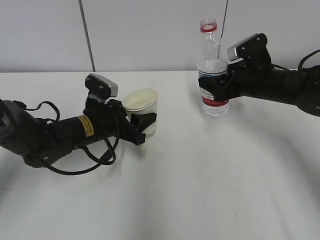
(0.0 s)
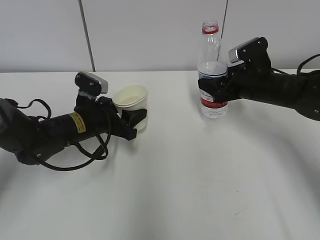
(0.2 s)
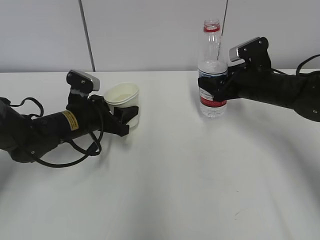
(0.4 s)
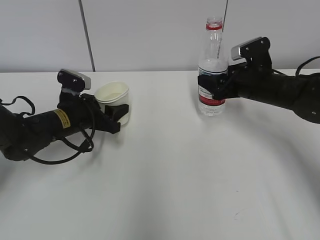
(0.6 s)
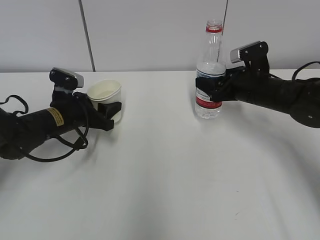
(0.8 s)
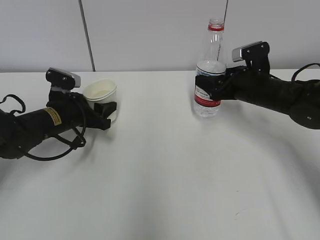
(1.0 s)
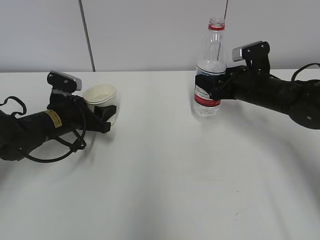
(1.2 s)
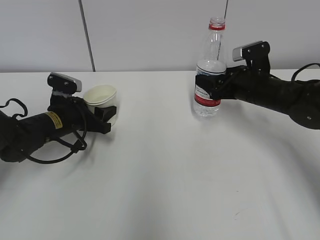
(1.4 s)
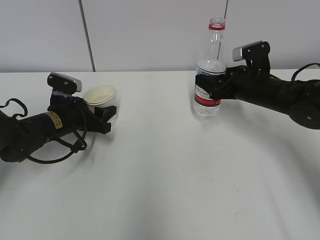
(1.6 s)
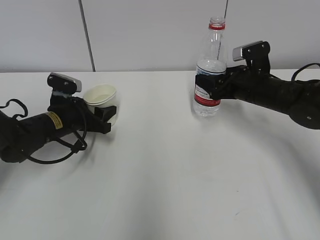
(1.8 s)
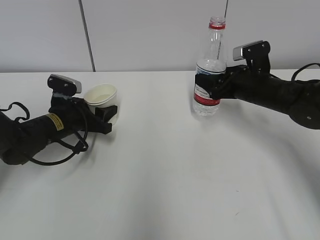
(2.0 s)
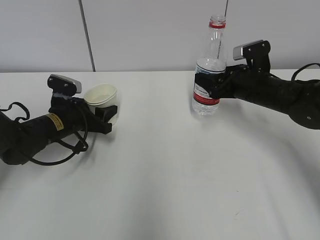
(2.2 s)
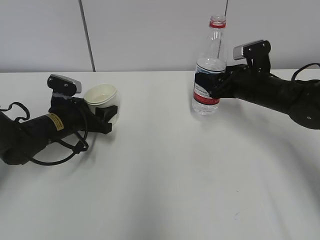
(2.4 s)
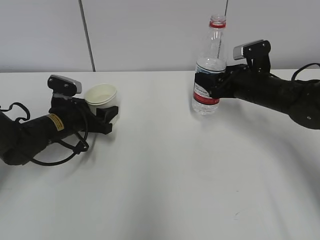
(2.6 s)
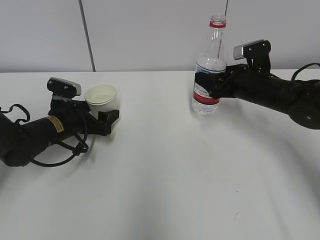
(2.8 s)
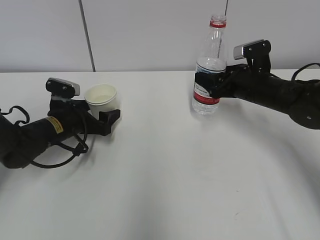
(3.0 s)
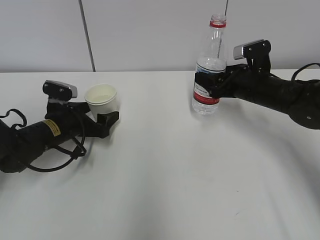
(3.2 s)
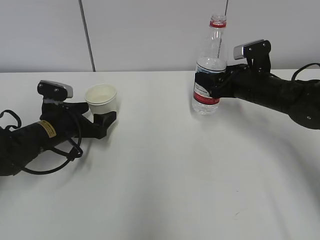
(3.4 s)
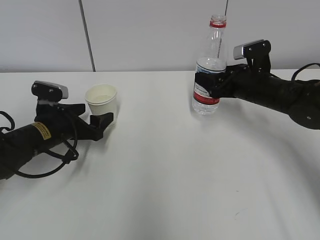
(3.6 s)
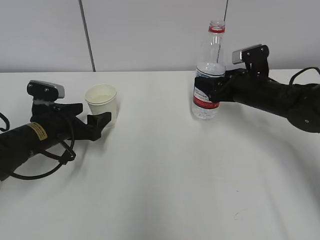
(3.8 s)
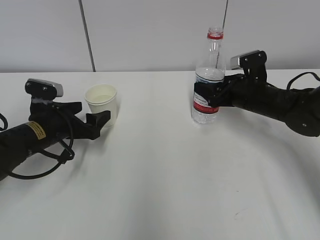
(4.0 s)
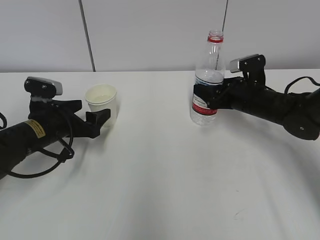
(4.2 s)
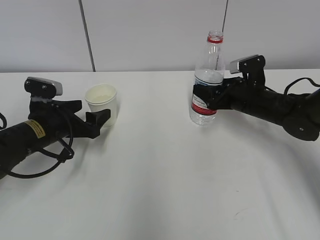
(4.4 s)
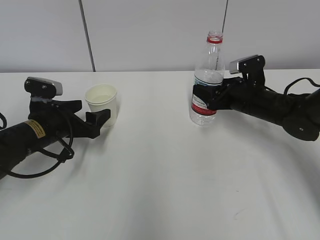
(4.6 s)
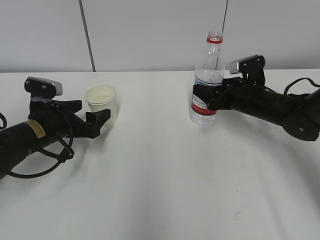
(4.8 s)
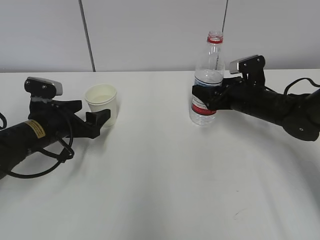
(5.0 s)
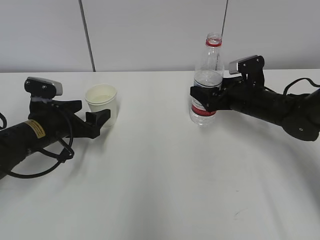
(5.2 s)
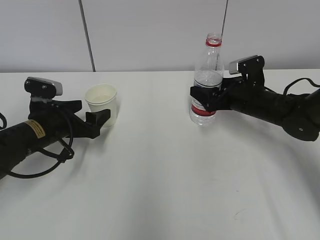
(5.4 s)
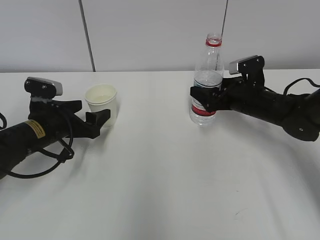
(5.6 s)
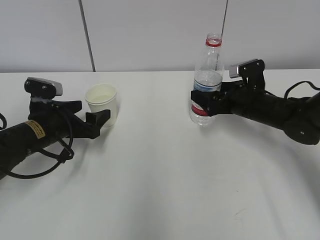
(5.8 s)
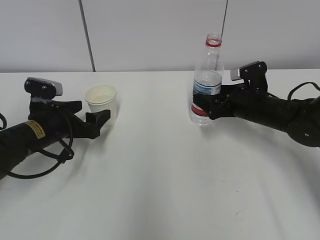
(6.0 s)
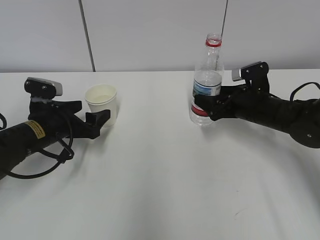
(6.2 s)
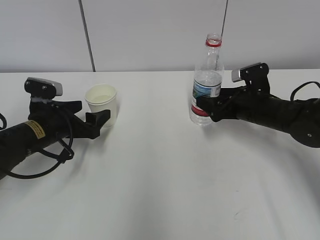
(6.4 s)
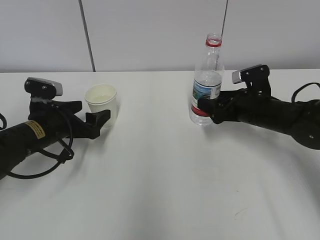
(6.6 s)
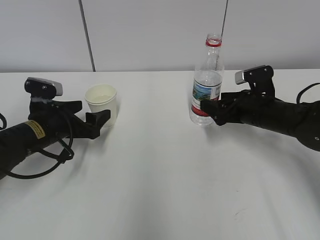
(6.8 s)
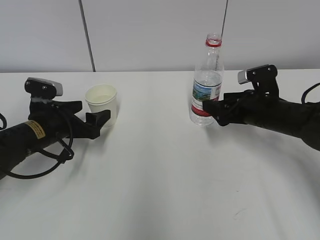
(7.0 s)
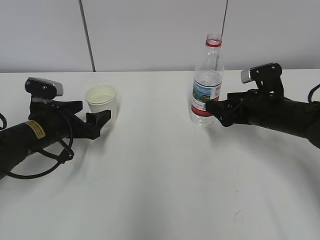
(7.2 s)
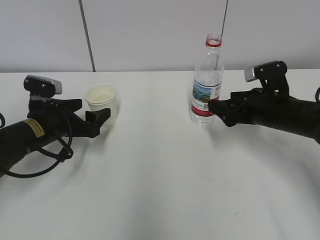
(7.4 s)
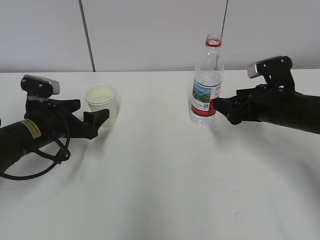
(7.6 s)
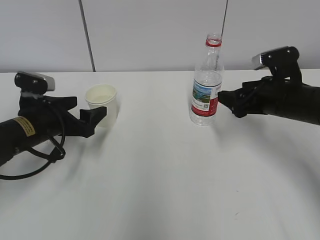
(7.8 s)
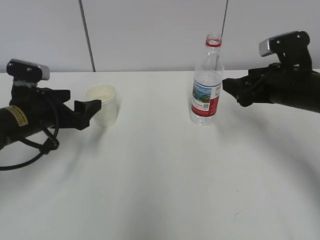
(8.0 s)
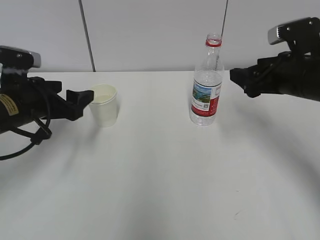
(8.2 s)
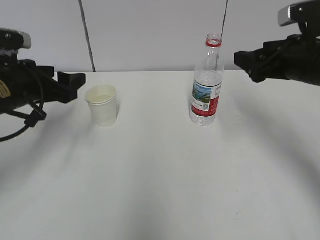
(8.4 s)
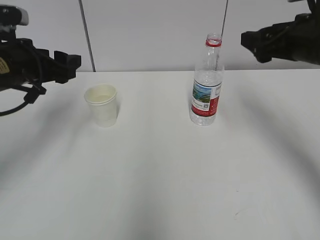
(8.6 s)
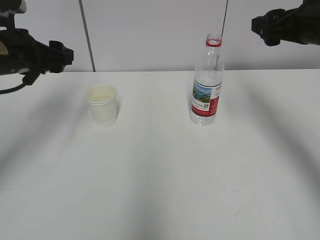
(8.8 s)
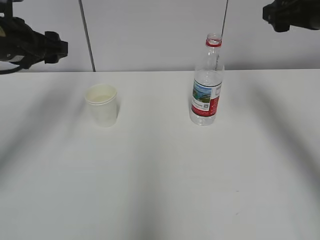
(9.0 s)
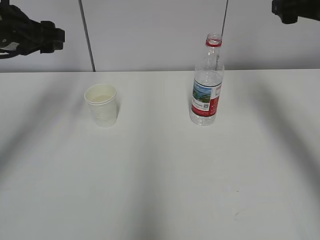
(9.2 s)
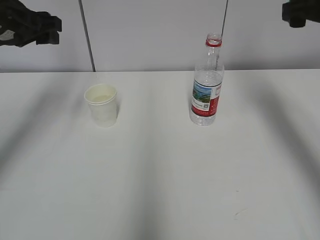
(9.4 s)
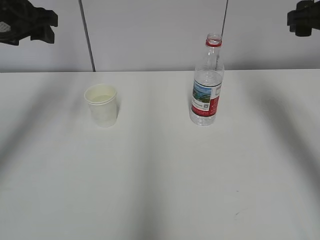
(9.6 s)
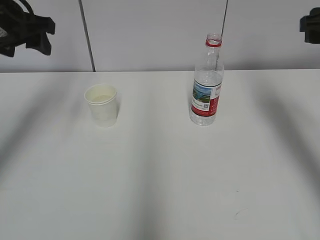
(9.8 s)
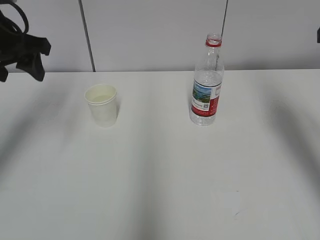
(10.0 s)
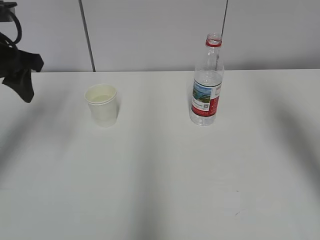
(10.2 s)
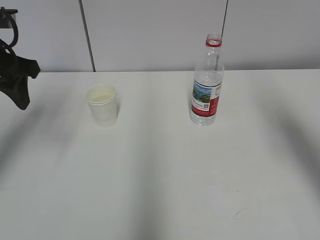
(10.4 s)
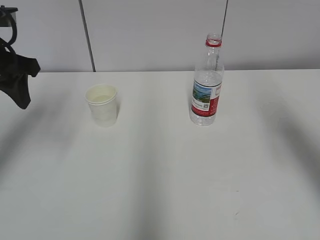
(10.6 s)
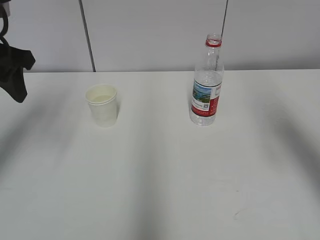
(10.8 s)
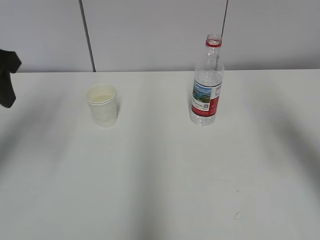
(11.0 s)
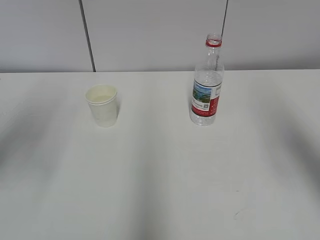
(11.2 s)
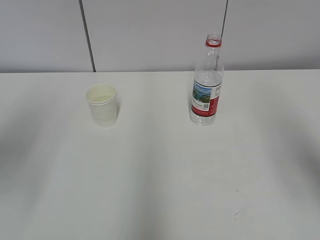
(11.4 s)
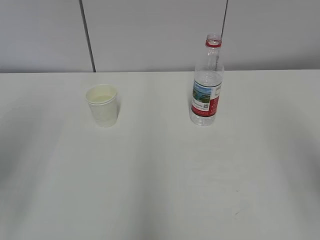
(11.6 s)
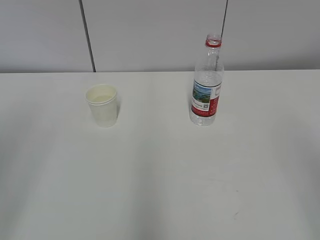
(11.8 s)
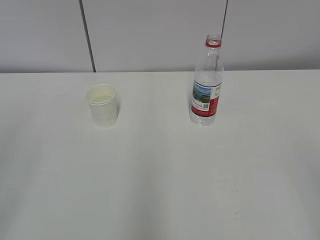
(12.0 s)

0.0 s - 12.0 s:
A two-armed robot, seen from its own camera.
0.0 s - 1.6 s: The left gripper travels to the left by approximately 10 cm.
1.6 s - 3.0 s: The left gripper opens.
3.0 s - 4.4 s: The left gripper ends up some 5 cm from where it was.
4.4 s - 6.0 s: The right gripper opens up.
6.0 s - 7.6 s: The right gripper goes roughly 5 cm backward.
7.6 s - 9.0 s: Both grippers travel together upward, approximately 15 cm.
9.0 s - 10.4 s: The right gripper heads backward, covering approximately 10 cm. The left gripper moves some 5 cm.
10.4 s - 12.0 s: The two grippers go about 25 cm backward.

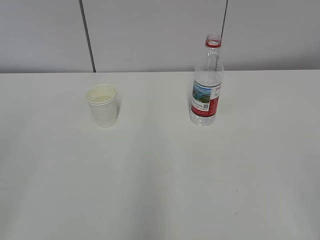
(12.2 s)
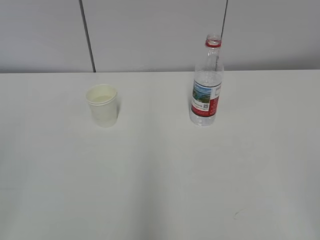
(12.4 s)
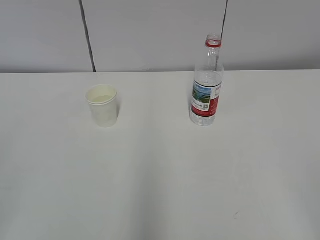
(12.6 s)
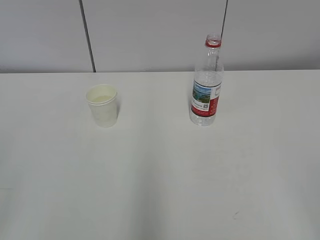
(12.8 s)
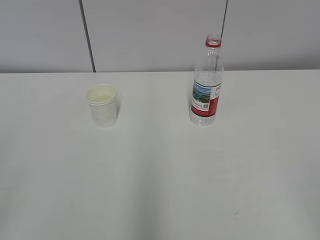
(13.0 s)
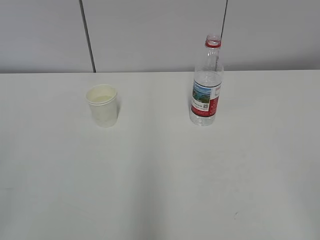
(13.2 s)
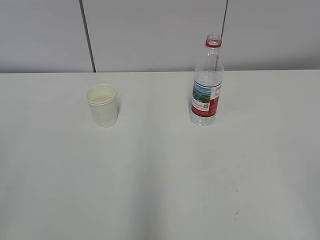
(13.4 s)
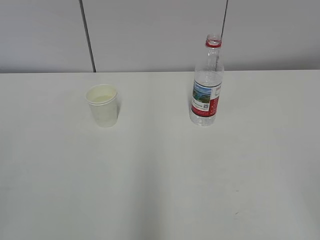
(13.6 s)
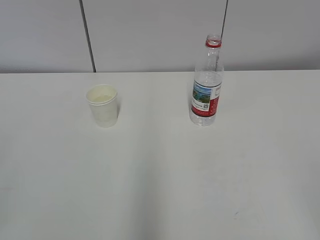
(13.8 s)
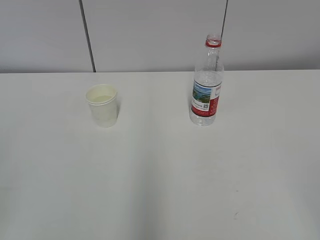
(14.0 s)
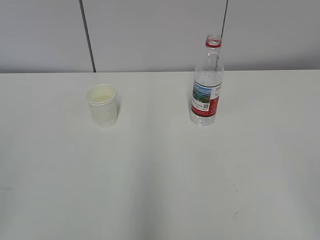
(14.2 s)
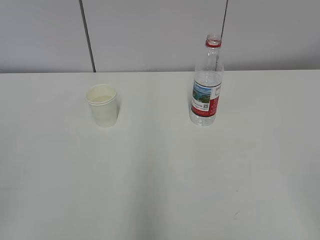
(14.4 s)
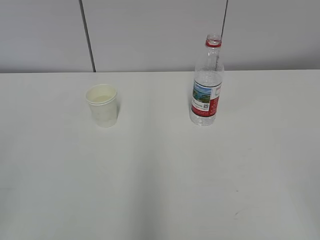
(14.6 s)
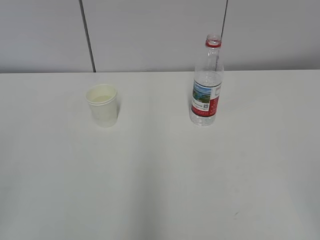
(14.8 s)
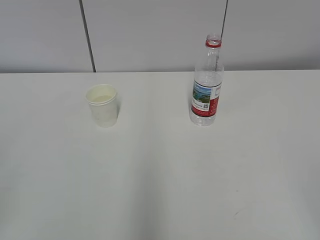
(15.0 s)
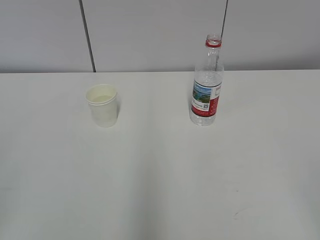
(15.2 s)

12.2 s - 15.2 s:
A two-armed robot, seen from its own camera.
13.8 s - 15.2 s: Both grippers stay put.

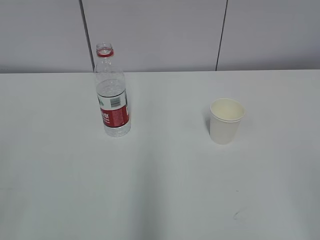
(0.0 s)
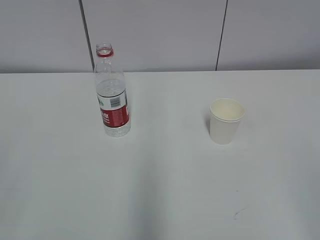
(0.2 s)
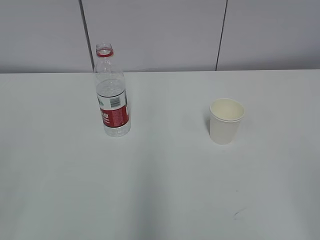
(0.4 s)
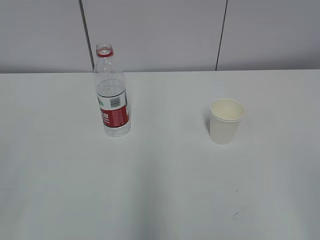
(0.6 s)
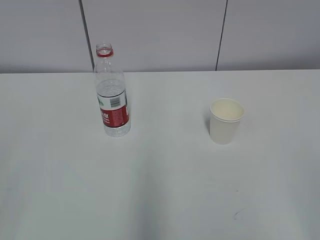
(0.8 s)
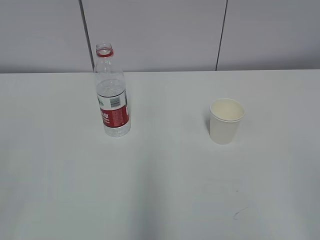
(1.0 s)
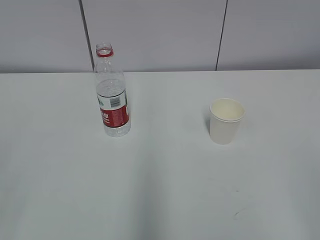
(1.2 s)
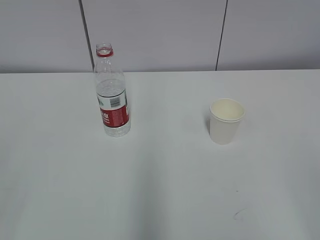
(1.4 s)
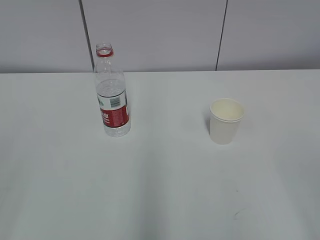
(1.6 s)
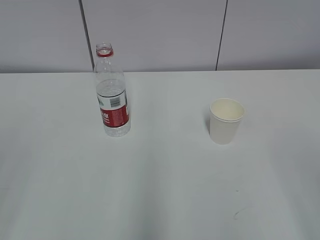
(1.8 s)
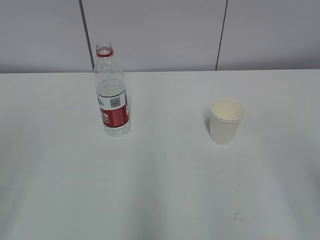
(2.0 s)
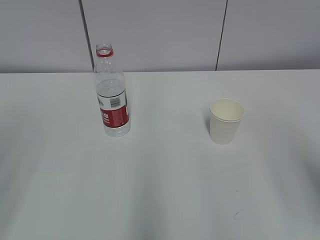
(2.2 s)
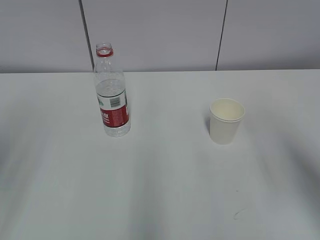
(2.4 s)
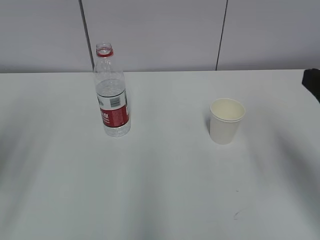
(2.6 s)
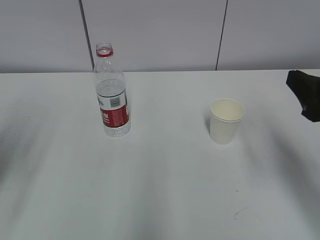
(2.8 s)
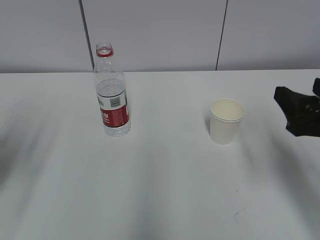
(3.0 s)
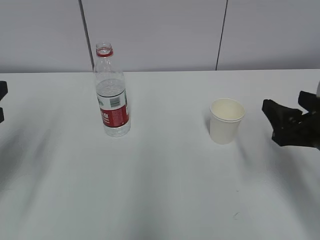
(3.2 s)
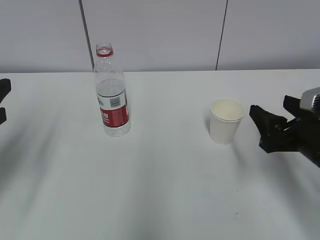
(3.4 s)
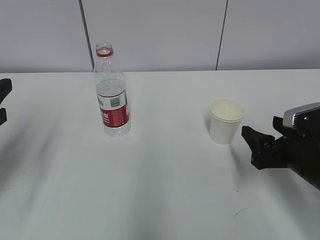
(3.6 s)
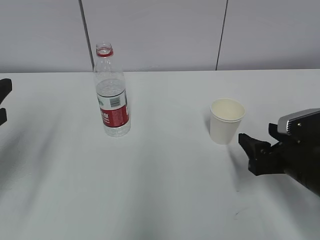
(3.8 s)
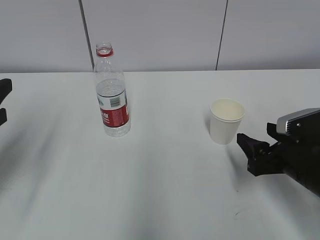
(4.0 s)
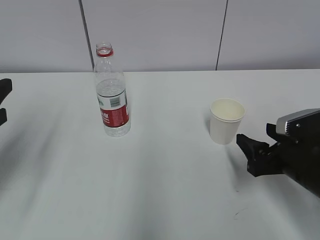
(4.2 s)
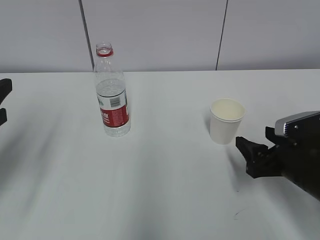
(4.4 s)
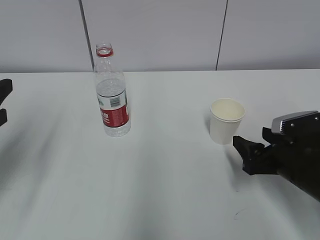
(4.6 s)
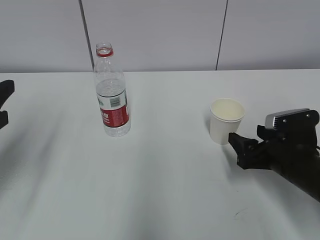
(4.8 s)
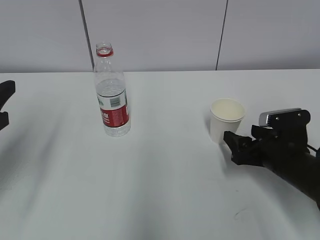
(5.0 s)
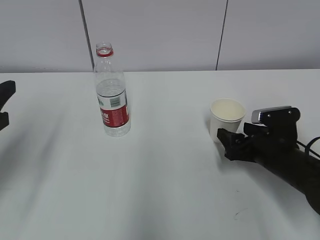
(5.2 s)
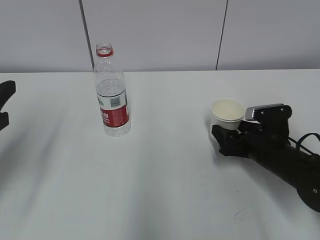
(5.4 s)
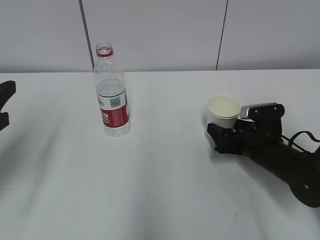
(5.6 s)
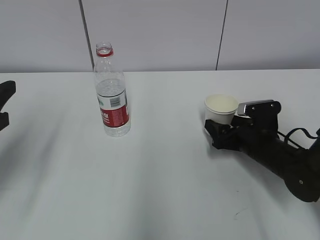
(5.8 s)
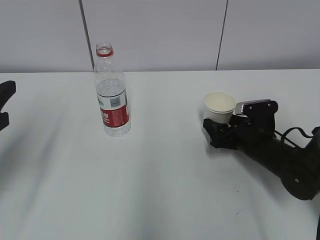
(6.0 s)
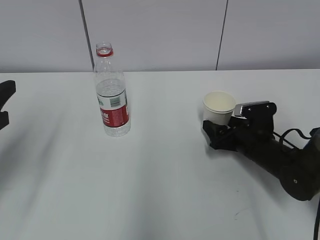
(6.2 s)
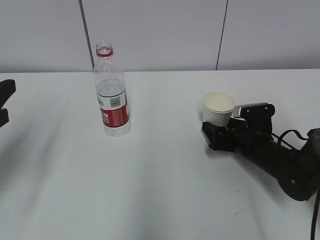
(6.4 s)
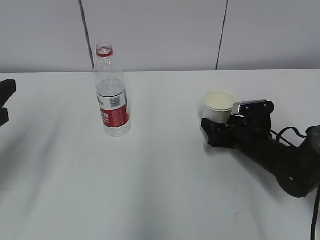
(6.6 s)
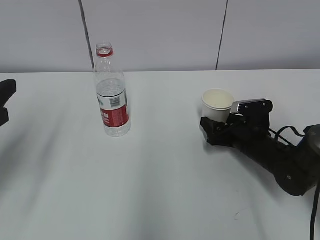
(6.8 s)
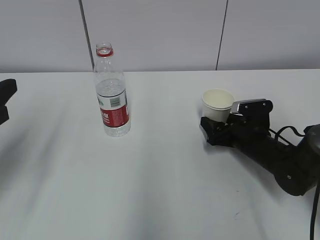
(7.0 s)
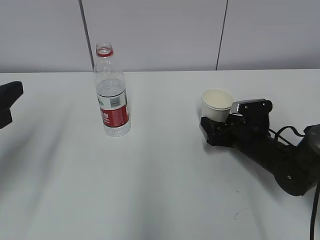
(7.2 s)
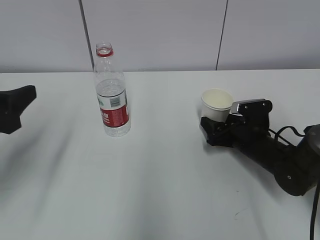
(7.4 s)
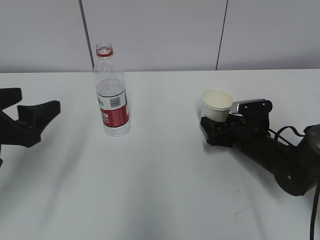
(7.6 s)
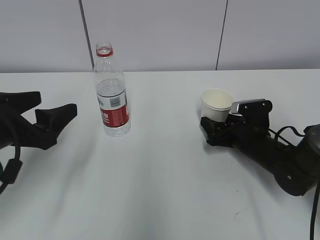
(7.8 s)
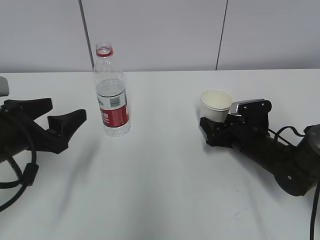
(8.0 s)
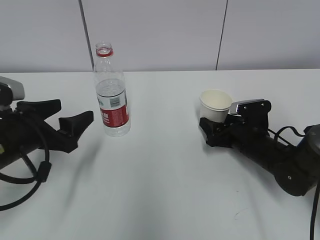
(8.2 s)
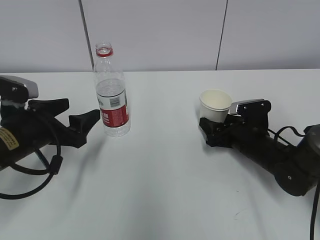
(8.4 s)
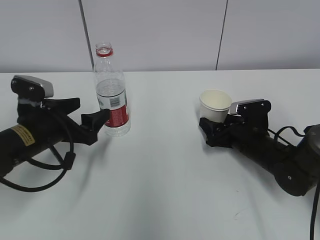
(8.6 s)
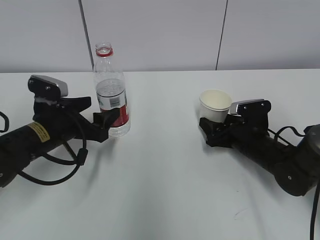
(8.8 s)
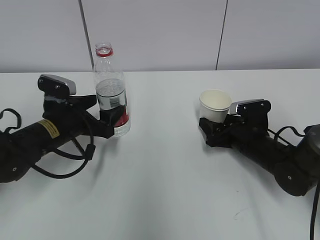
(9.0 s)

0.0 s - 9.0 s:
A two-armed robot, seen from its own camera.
Step, 0.0 s - 8.4 s: Grab the water bottle with the left hand.
1.6 s - 3.0 s: The grippers both shift forward by approximately 20 cm.
3.0 s - 4.4 s: The right gripper travels downward by roughly 10 cm.
4.4 s - 6.0 s: The right gripper goes roughly 10 cm forward and downward.
6.0 s - 7.6 s: The left gripper opens its fingers.
7.6 s - 9.0 s: The left gripper travels forward, downward and to the right by approximately 15 cm.
